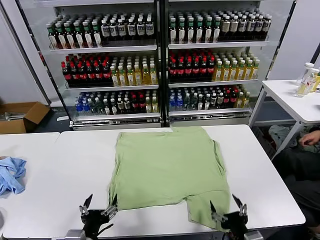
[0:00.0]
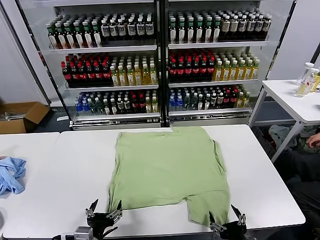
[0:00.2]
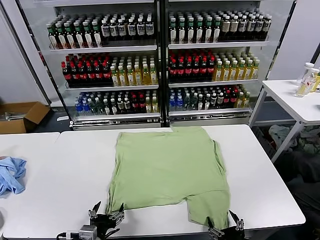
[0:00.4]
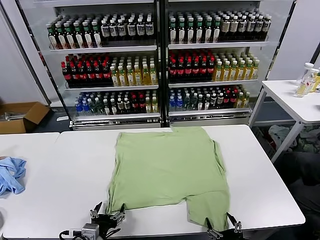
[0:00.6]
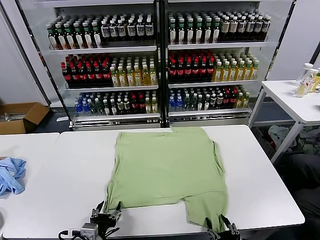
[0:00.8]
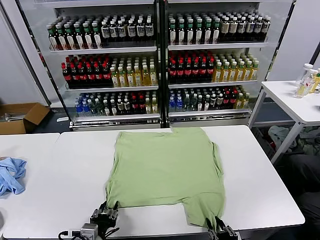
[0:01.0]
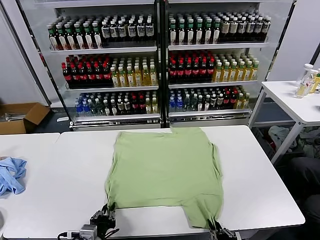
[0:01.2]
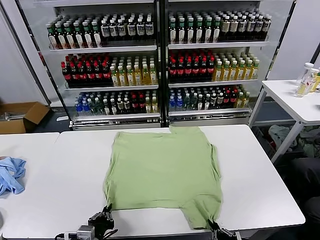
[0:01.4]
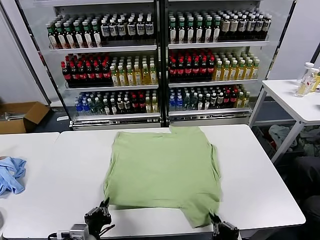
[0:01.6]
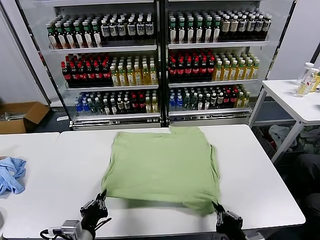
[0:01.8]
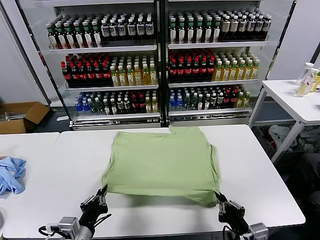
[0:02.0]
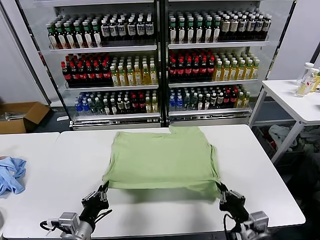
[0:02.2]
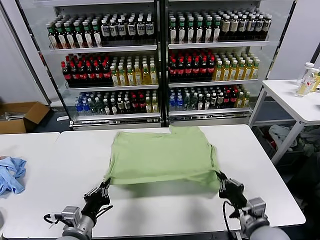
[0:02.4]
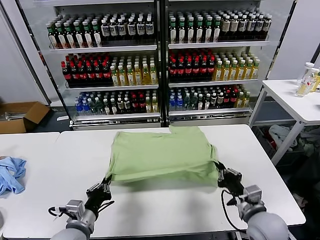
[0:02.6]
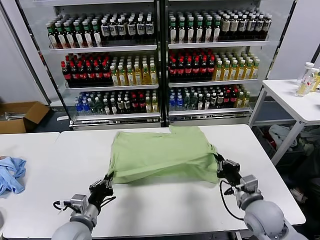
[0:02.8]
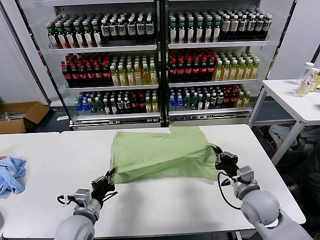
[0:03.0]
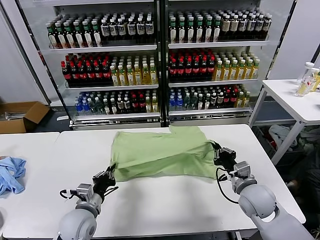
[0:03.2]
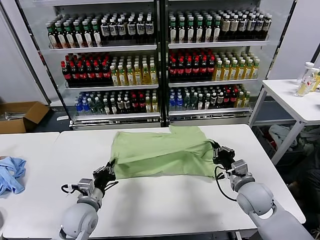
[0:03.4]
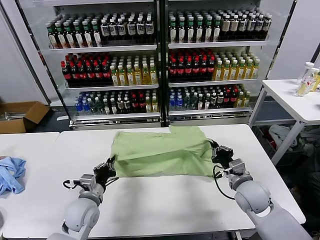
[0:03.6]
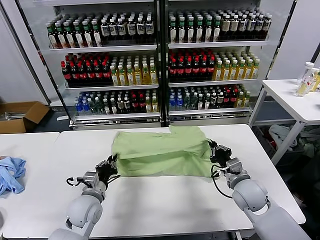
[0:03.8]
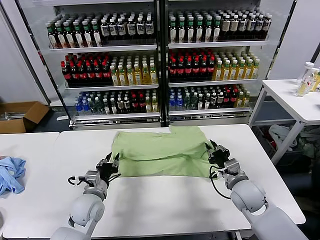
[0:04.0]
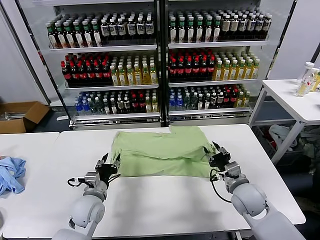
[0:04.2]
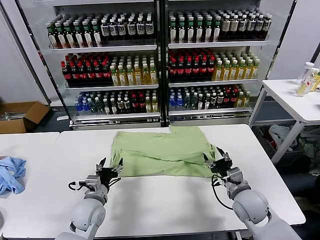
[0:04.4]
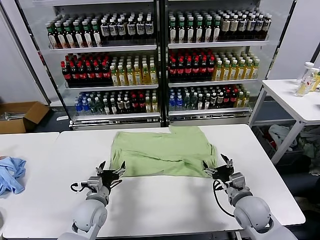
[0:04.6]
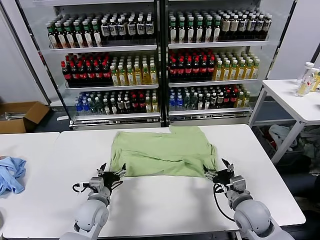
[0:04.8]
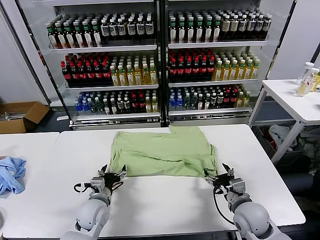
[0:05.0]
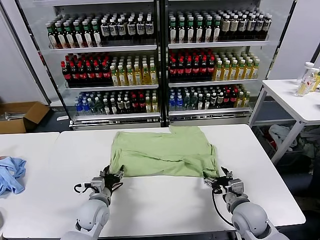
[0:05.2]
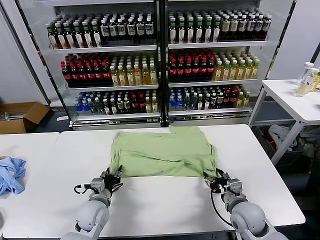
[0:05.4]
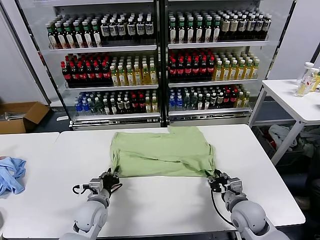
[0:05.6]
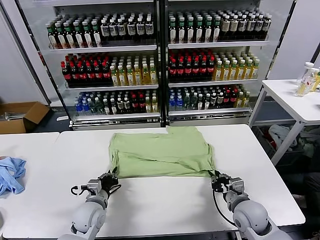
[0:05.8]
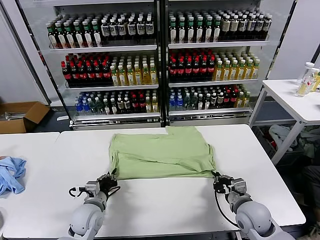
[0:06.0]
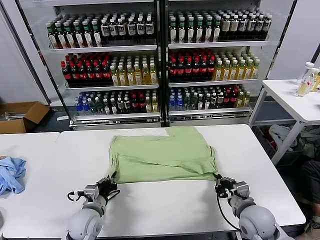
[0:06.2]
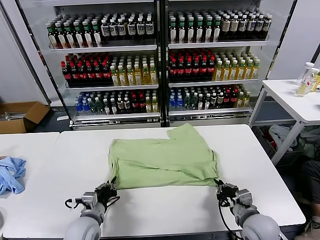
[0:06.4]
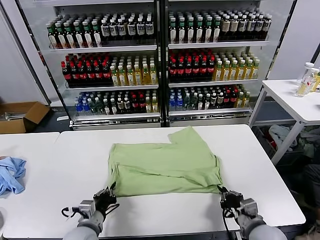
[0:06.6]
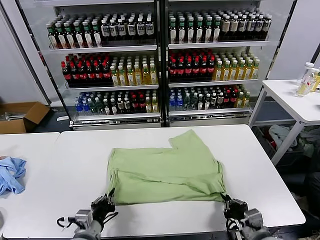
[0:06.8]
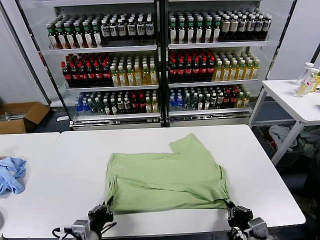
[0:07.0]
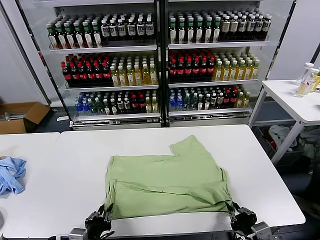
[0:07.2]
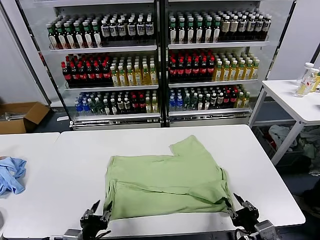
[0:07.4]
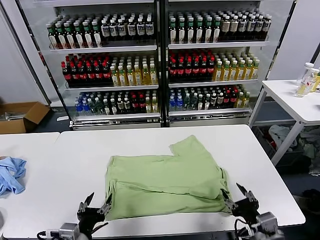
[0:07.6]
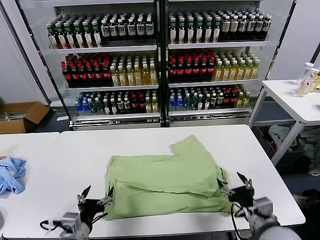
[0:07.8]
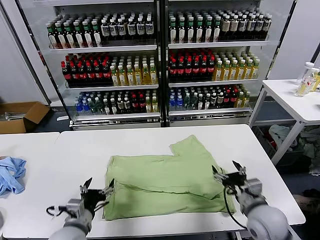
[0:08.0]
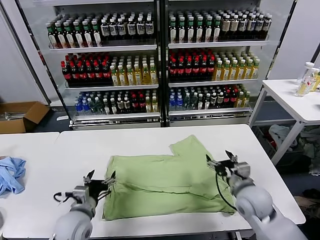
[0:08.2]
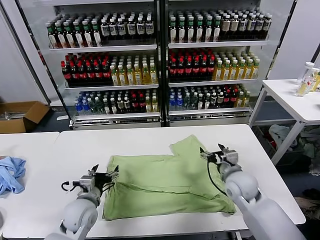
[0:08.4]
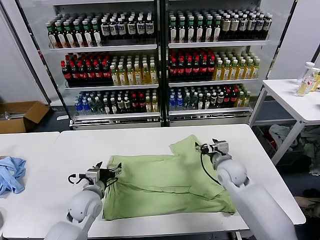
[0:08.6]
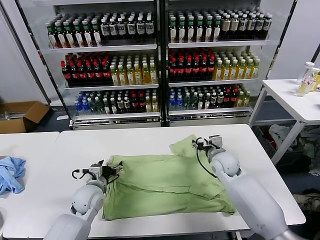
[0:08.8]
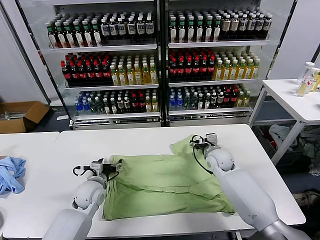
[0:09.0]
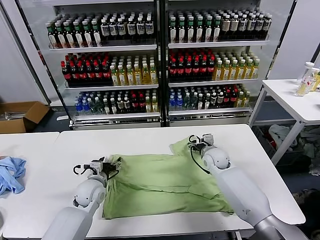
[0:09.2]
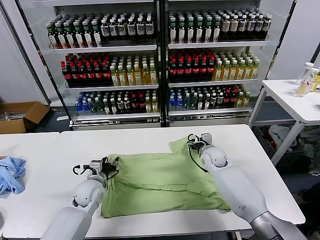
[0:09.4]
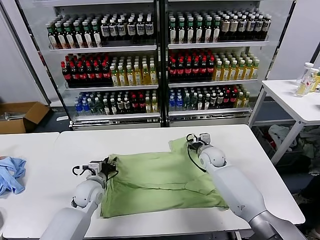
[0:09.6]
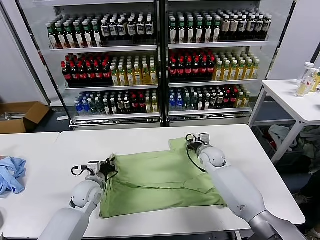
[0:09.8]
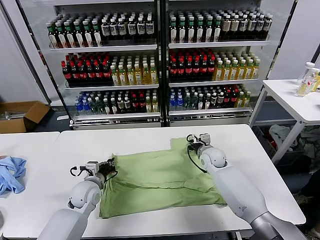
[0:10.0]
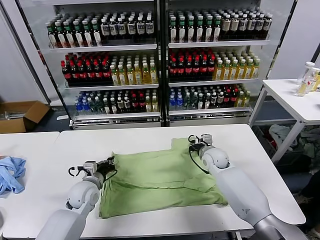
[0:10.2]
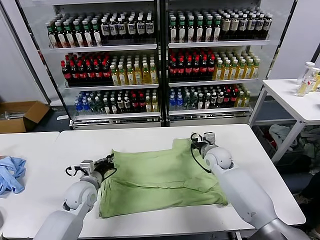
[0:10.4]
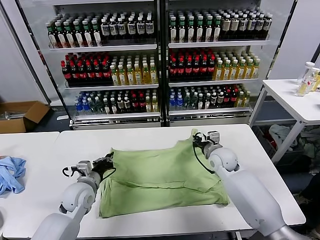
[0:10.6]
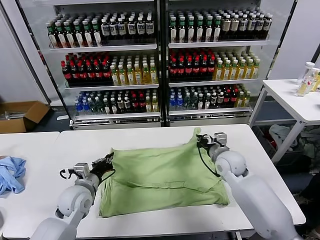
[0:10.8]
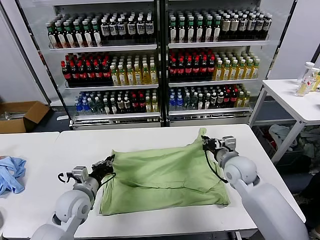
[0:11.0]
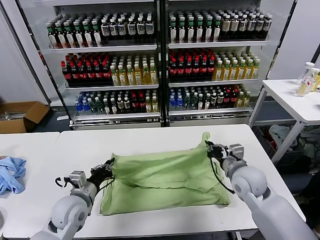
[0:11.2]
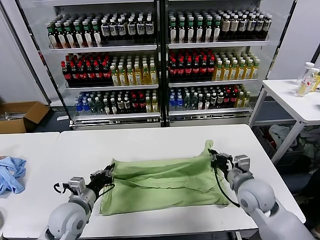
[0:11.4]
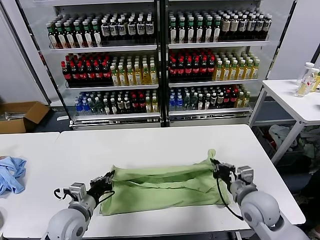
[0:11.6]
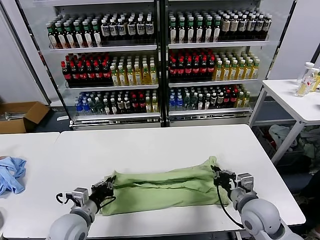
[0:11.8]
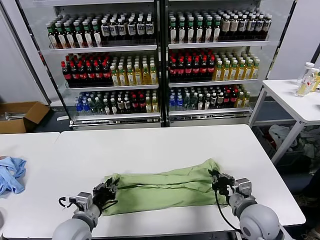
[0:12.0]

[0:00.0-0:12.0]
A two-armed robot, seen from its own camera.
Task of the whole recording: fold and organize the clothes.
Step, 0:00.0 to 0:01.4: use both grippers simultaneously to clamp the lower edge of the clothing fabric.
Step, 0:01.6 to 0:04.4: use both grippers to drag the lower edge of the fabric forward and fold it over the upper edge.
Step, 0:04.6 to 0:07.4: Drag the clothes downward with both gripper.
Step, 0:07.6 to 0:09.8: use both grippers simultaneously to clamp the upper edge of the clothing fabric.
0:01.6 to 0:03.0: The left gripper moves forward, some 10 cm, while the right gripper shifts roughly 20 cm forward.
0:03.0 to 0:04.4: The right gripper opens its fingers, while the left gripper goes approximately 5 cm forward, and opens up.
0:04.4 to 0:06.0: The right gripper closes up; the left gripper closes up.
0:06.0 to 0:07.6: Both grippers travel together backward and upward, roughly 15 cm. The right gripper opens its fingers. The left gripper opens up.
0:07.6 to 0:09.0: The two grippers go roughly 30 cm forward.
0:09.0 to 0:10.4: The right gripper closes up. Meanwhile the left gripper closes.
0:10.4 to 0:12.0: The left gripper heads backward, covering about 15 cm, while the right gripper is displaced backward by about 25 cm.

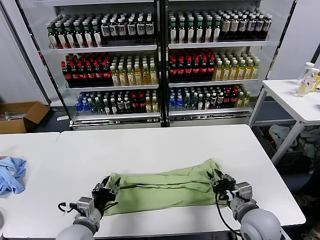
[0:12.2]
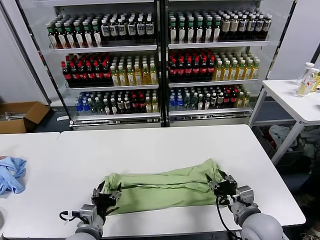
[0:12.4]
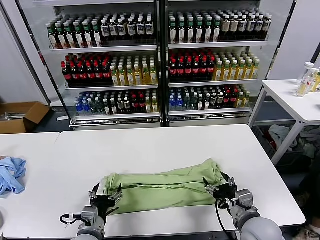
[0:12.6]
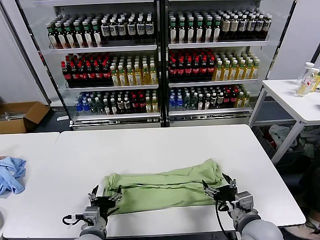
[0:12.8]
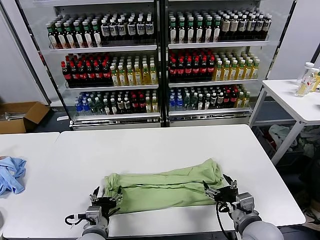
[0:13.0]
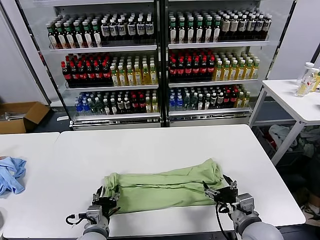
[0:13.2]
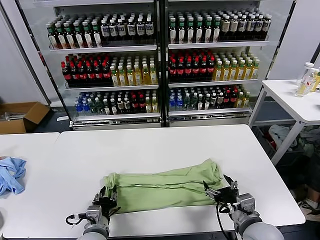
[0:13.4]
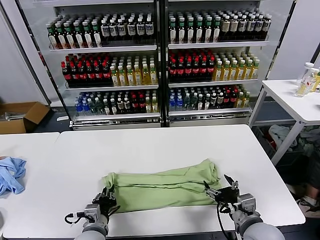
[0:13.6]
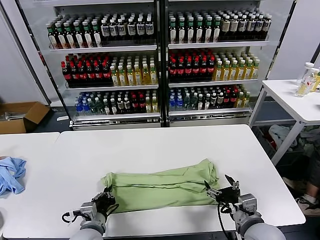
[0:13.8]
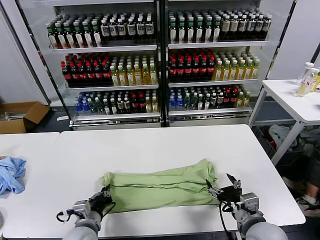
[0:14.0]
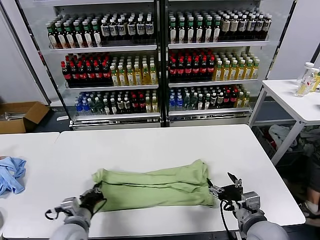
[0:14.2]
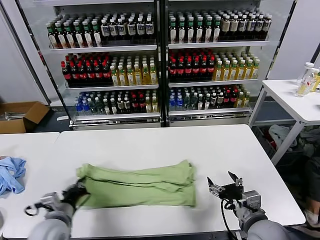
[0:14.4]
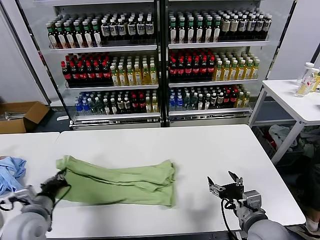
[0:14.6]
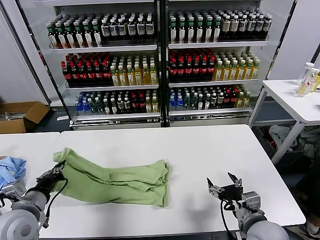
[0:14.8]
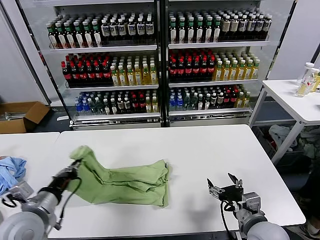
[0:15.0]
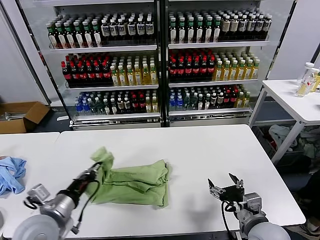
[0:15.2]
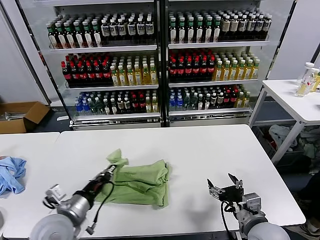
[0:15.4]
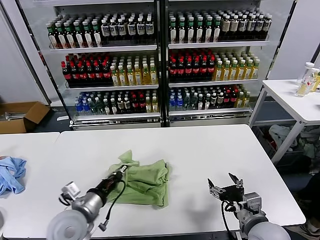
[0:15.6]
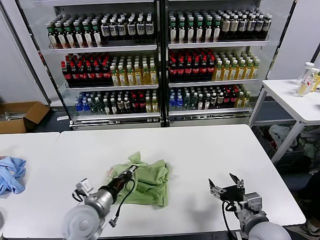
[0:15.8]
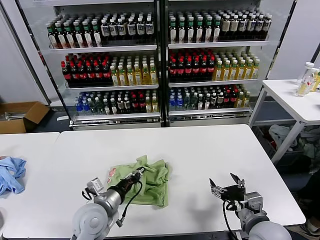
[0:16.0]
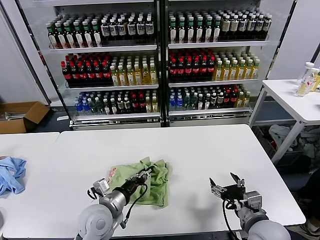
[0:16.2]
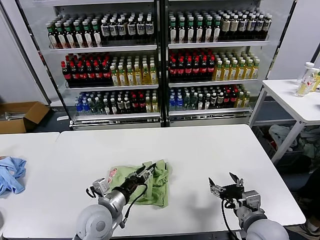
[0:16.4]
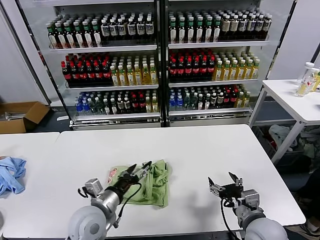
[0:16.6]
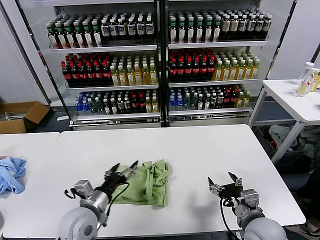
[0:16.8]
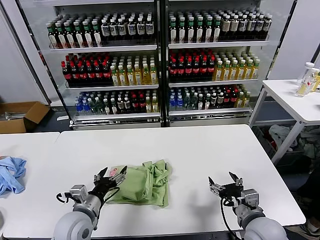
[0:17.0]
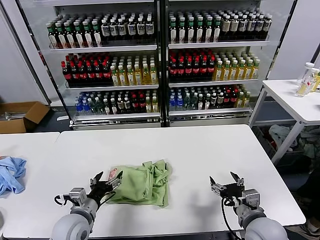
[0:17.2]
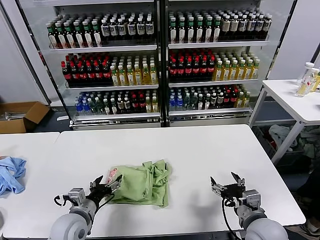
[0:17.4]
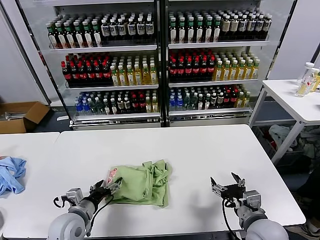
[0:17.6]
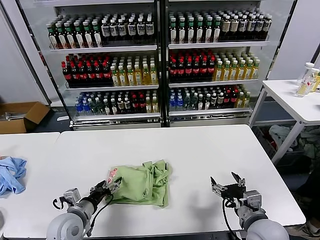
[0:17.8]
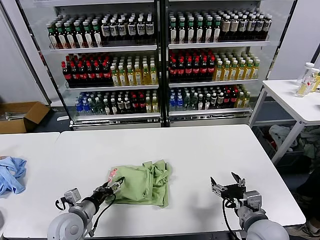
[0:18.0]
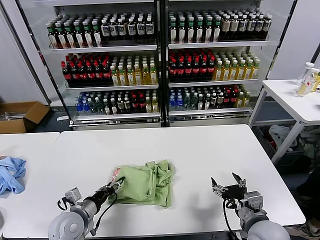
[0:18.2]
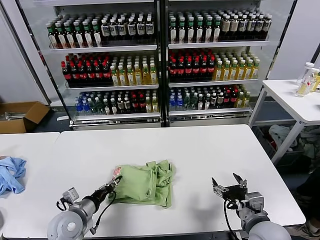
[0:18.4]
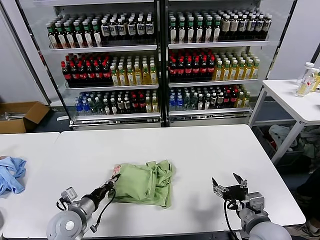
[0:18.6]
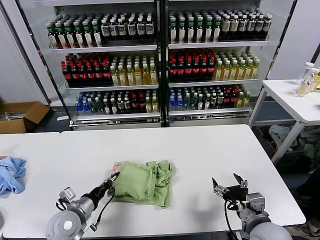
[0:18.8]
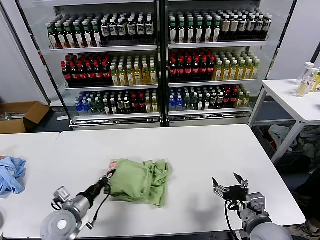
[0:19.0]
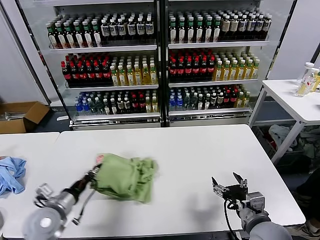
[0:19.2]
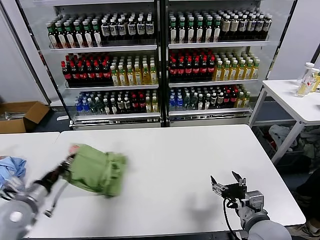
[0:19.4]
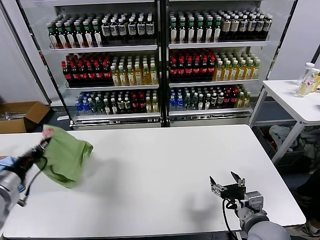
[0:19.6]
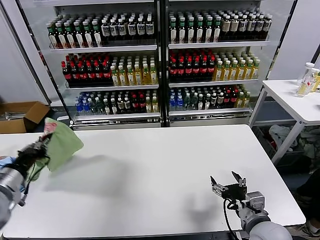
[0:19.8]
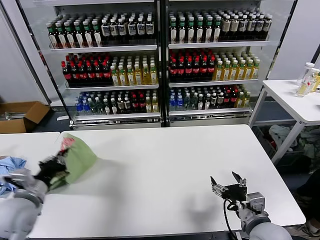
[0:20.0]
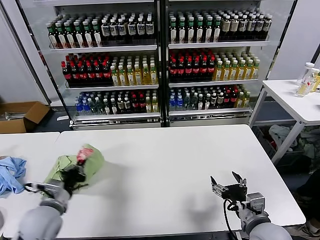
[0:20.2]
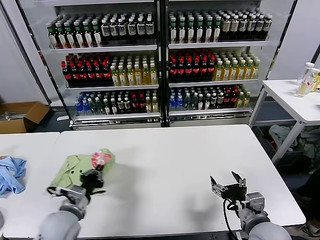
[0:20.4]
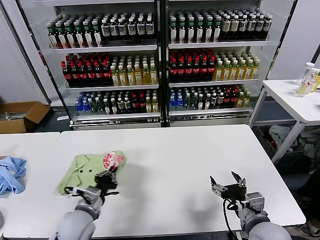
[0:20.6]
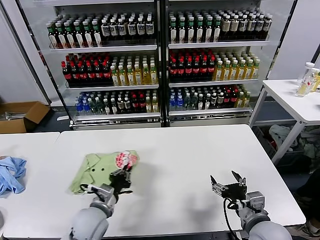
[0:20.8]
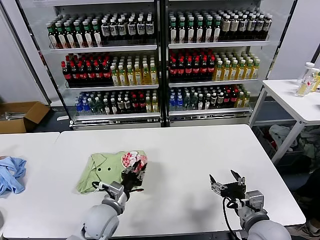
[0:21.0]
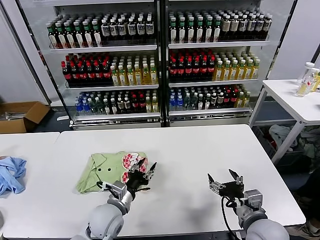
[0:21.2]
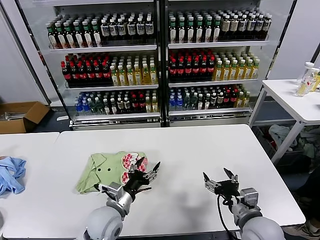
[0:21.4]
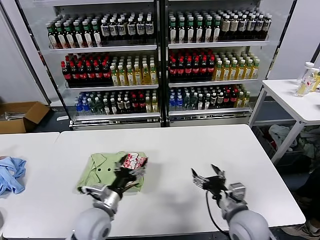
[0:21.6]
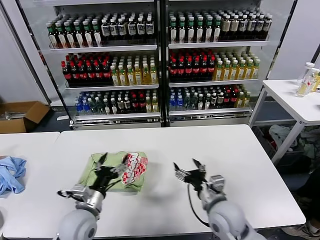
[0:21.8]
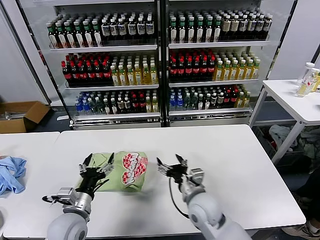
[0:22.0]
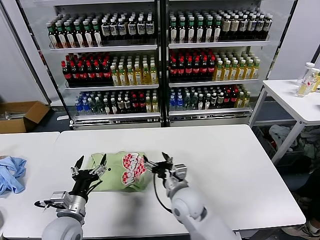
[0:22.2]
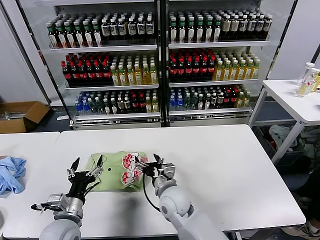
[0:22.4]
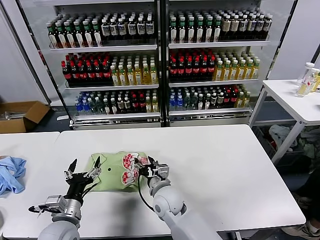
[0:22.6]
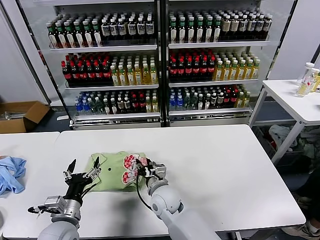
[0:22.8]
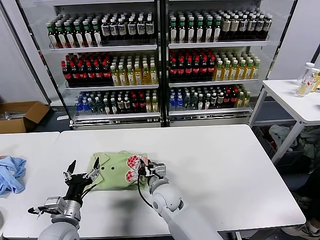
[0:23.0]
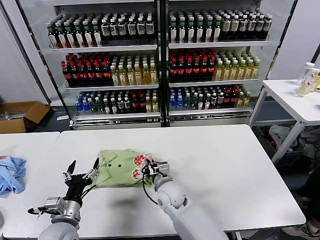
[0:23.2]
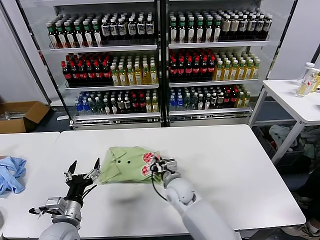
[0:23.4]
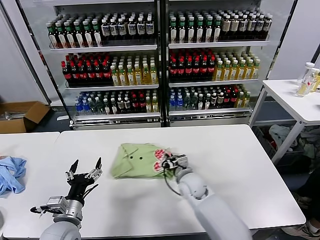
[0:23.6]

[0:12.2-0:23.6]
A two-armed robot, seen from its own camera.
Task of the whole recording: fold and organize the clothes.
Step, 0:12.4 to 0:13.6: use the left gripper to clamp the left edge of the fabric.
Step, 0:14.0 to 0:16.4: use the left gripper to drag the left edge of the fabric to the left and folds it over the right edge.
Step, 0:16.6 to 0:21.2: Flip the folded clothes over with left gripper.
0:12.2 to 0:13.6: The right gripper opens up. The left gripper changes place by some 5 cm, and opens and closes again.
0:13.6 to 0:15.0: The left gripper shifts about 20 cm upward and to the left.
0:15.0 to 0:16.4: The left gripper moves to the right and downward, some 15 cm, and opens up.
0:16.4 to 0:17.8: The left gripper moves to the left, about 10 cm, and opens up.
0:17.8 to 0:19.4: The left gripper heads to the left and upward, covering some 15 cm, and closes its fingers.
0:19.4 to 0:20.8: The left gripper moves to the right, some 15 cm.
0:20.8 to 0:22.2: The right gripper is displaced to the left and forward by roughly 20 cm, while the left gripper heads to the left, covering some 5 cm, and opens.
0:22.2 to 0:23.6: The right gripper moves forward, roughly 10 cm, reaches some 5 cm to the left, then returns, and closes up.
